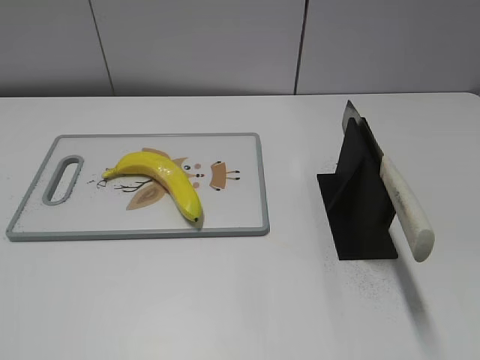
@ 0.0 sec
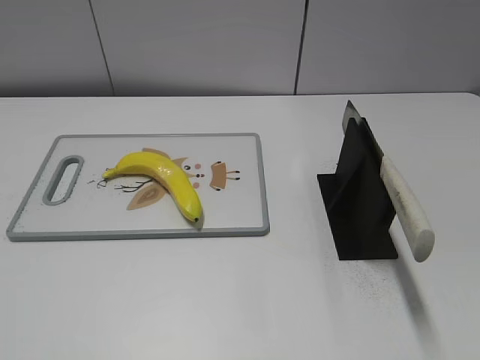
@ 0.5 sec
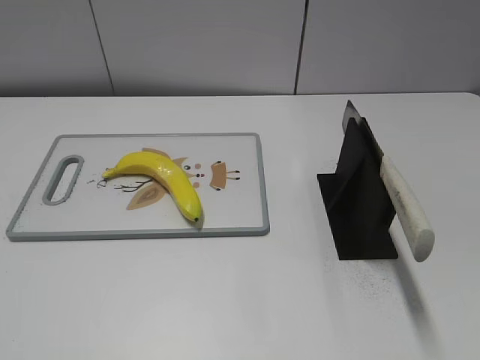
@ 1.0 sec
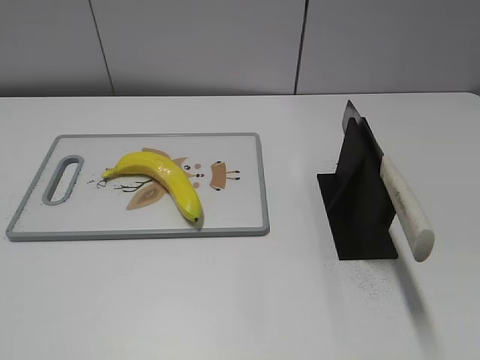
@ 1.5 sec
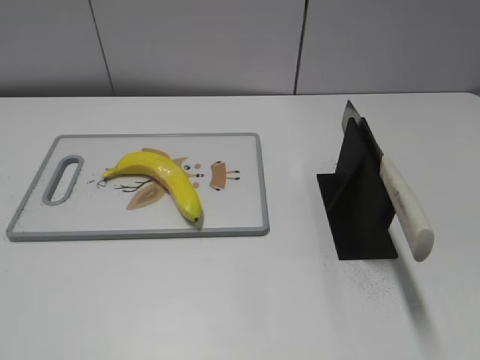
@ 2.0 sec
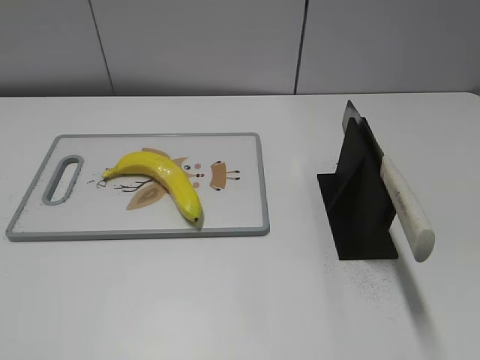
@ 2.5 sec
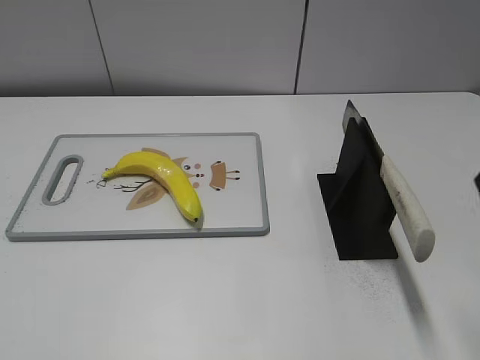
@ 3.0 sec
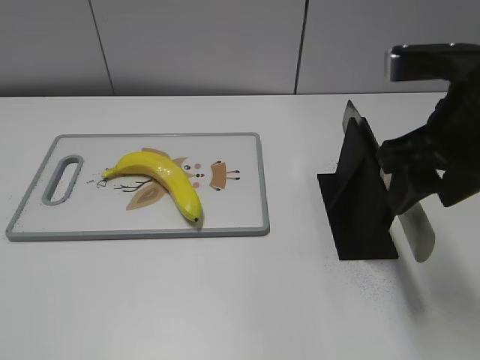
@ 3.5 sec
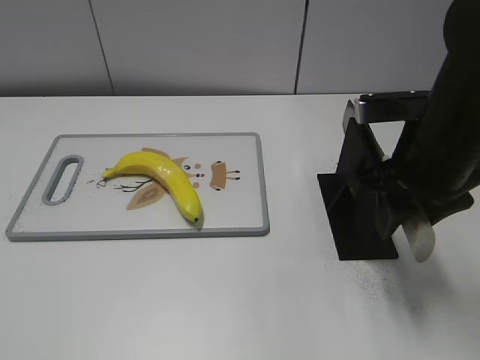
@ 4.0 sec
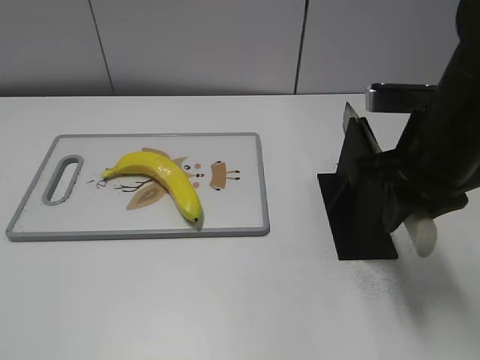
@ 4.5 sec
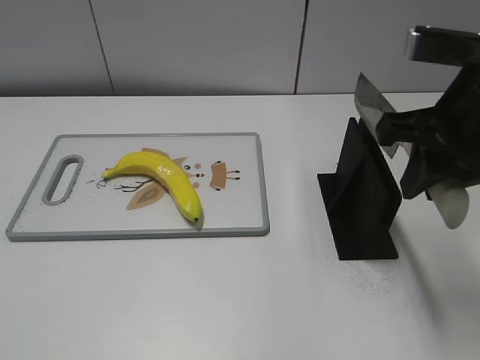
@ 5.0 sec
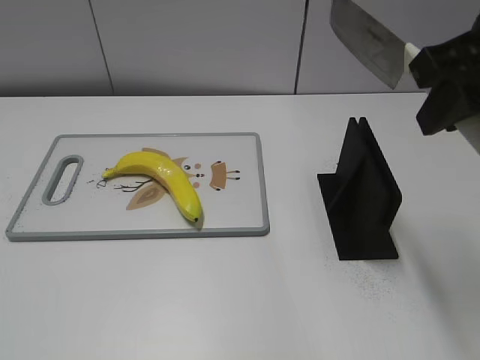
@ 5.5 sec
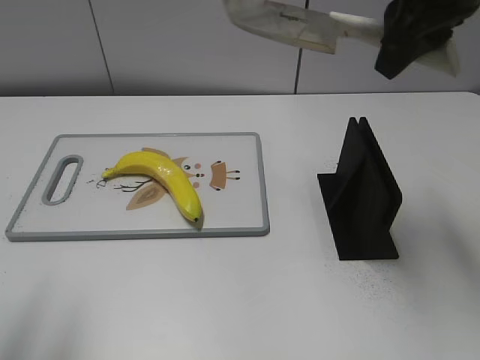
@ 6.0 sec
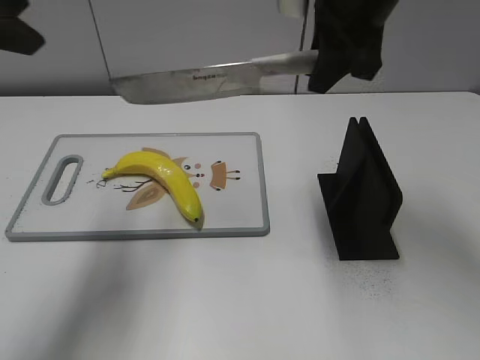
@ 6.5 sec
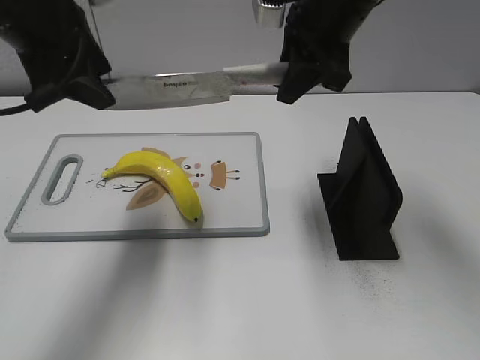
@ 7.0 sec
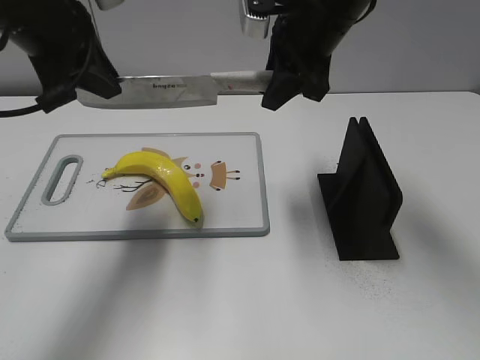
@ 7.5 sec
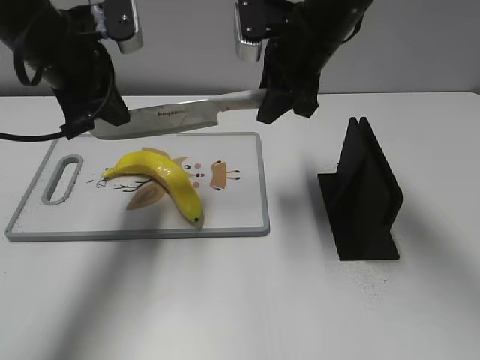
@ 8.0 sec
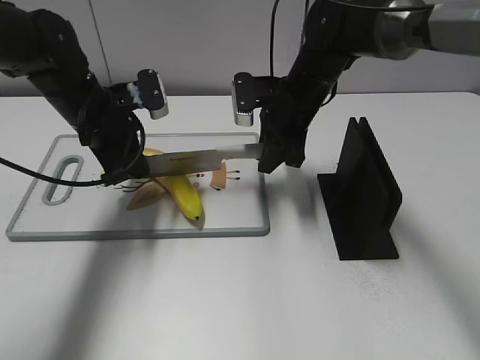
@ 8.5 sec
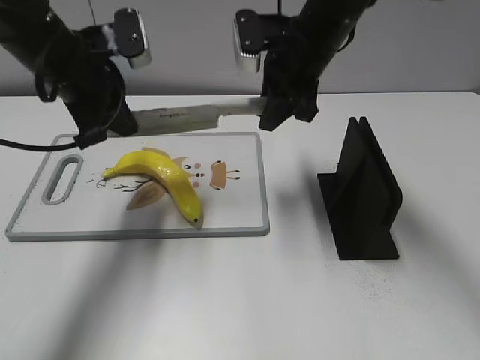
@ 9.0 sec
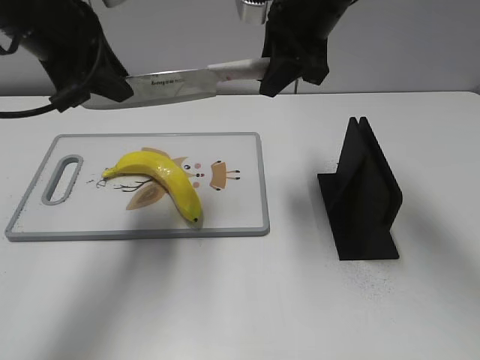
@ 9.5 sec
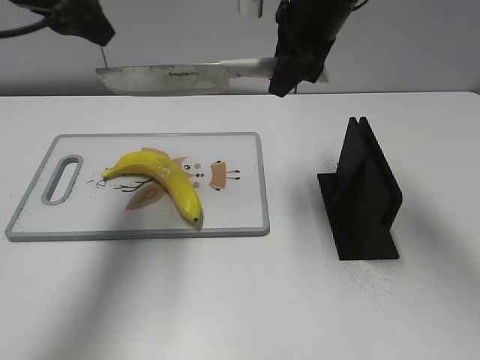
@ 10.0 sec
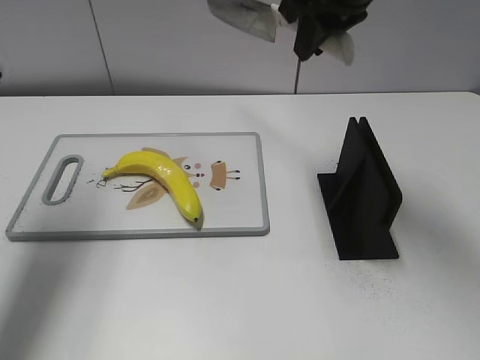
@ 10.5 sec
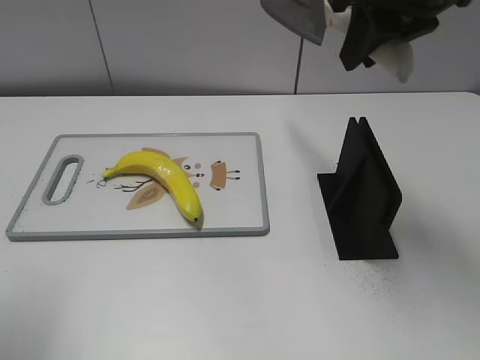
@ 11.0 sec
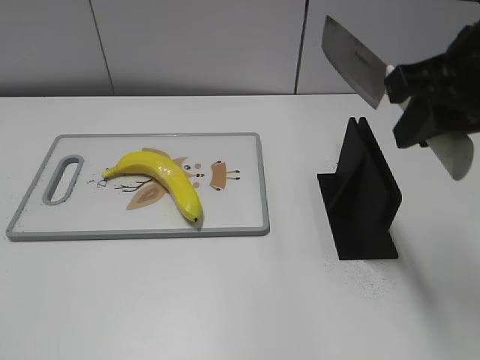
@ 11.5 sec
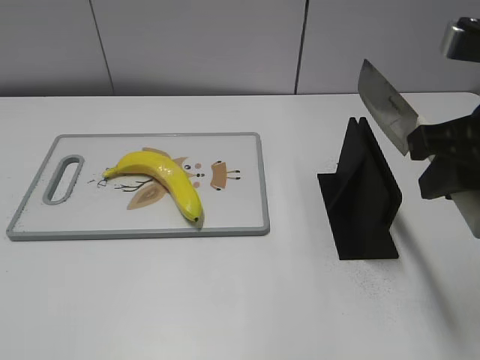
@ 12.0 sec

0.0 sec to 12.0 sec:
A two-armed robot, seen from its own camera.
Task of the whole recording: cut plastic banana.
Step, 0.0 sec to 5.0 sec: Grab the knife handle with your right hand.
Step, 5.5 sec to 9.0 sec: Lift the knife with your right hand.
Step, 10.0 sec to 10.5 sec: Cut the banana with your right hand.
Step, 11.0 sec to 11.5 sec: Secure the blade with your left hand.
2.0 sec to 4.0 sec: The right gripper is displaced forward and to the left by approximately 30 cm, and closes its fingers.
4.0 sec to 6.0 sec: The left gripper moves forward and upward, roughly 15 cm. Meanwhile the right gripper is displaced upward by about 15 cm, and closes its fingers.
6.0 sec to 8.0 sec: The right gripper goes approximately 15 cm downward, forward and to the left, while the left gripper travels forward, to the right and downward by approximately 25 cm, and closes up.
8.0 sec to 10.0 sec: The left gripper shifts about 10 cm upward, and opens up. Meanwhile the right gripper reaches roughly 10 cm downward, then returns.
10.0 sec to 12.0 sec: The left gripper travels backward by approximately 35 cm; the right gripper goes some 25 cm backward and to the right.

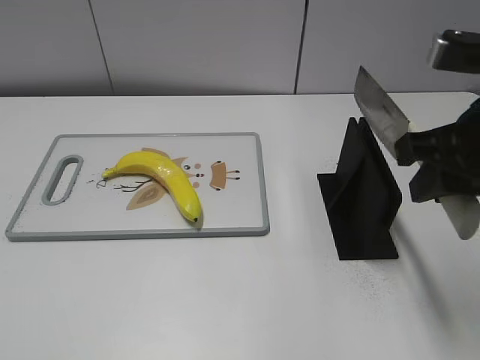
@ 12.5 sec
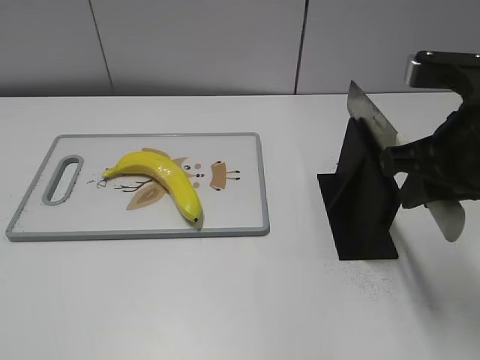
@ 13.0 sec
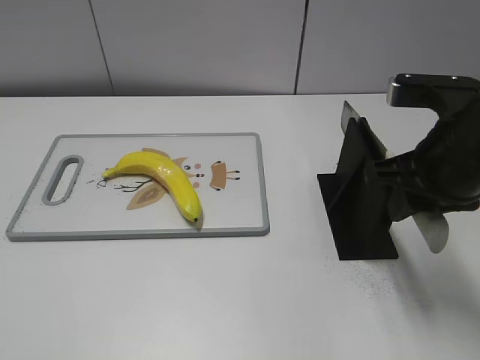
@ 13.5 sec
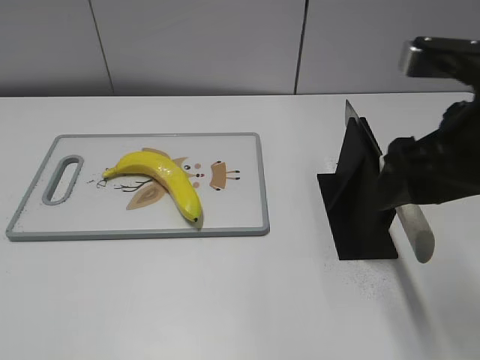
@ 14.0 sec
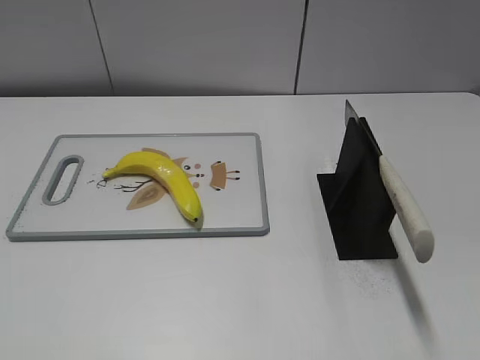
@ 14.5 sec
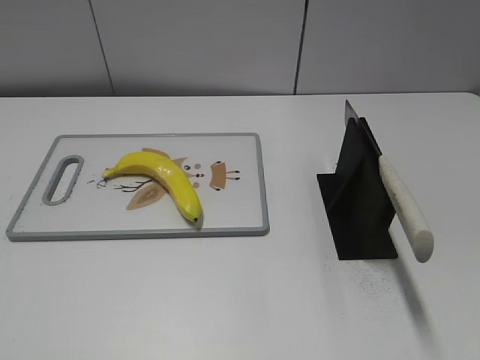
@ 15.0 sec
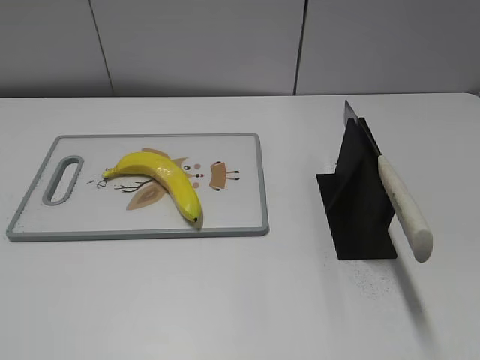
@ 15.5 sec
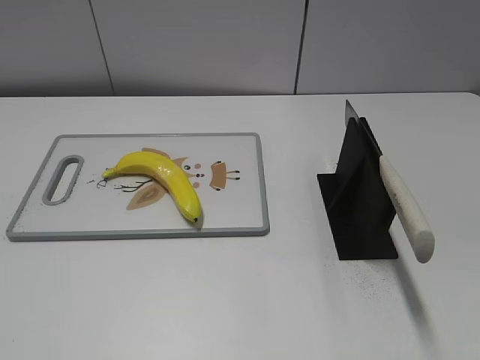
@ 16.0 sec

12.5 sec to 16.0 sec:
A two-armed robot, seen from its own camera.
Task of the whole recording: cut plastic banana.
Step, 12.5 sec to 16.0 sec: Place the knife on the storage rack with your right hand.
12.5 sec to 14.5 sec: The right gripper goes about 15 cm backward, and opens up.

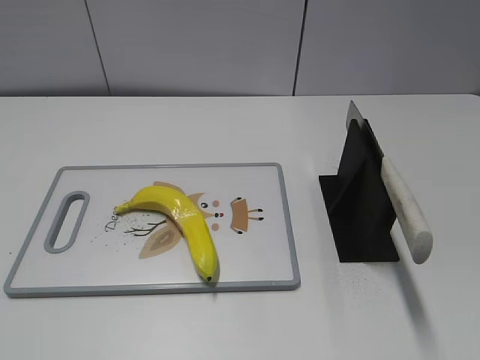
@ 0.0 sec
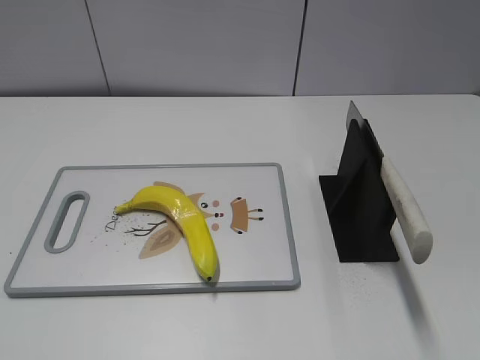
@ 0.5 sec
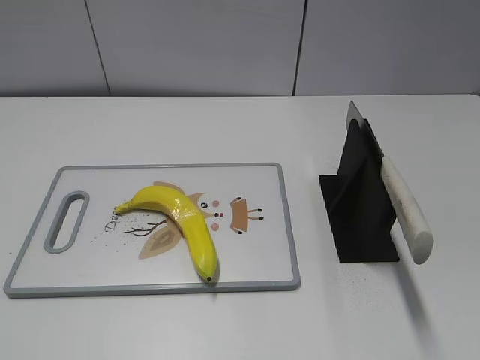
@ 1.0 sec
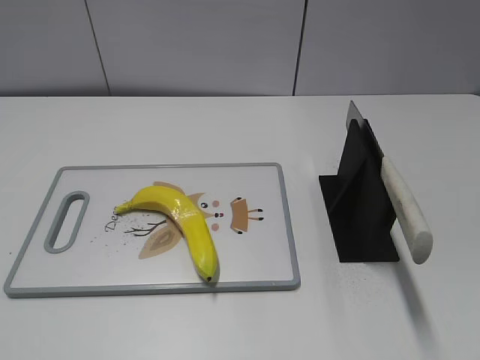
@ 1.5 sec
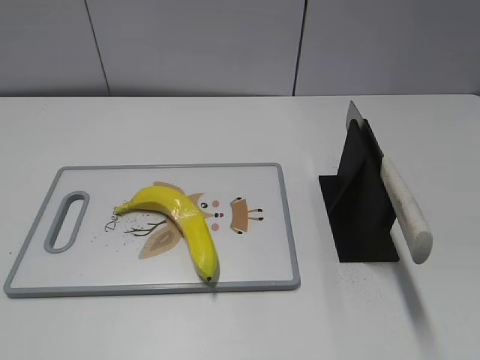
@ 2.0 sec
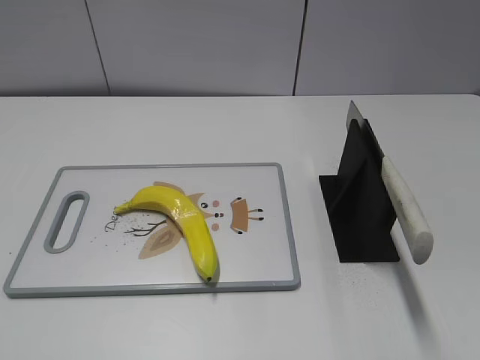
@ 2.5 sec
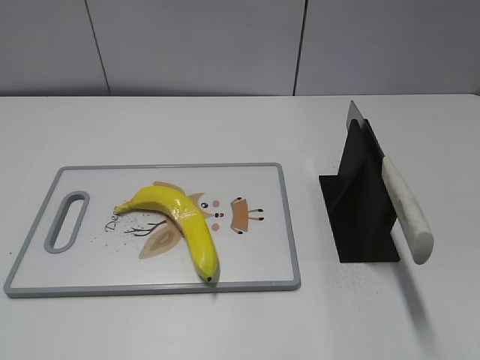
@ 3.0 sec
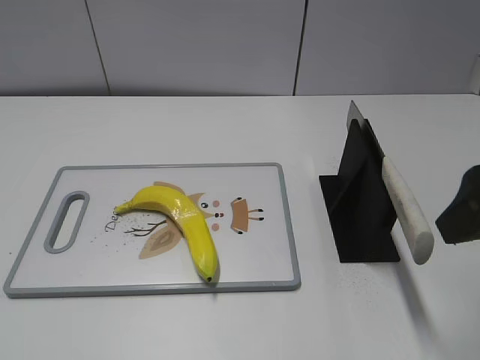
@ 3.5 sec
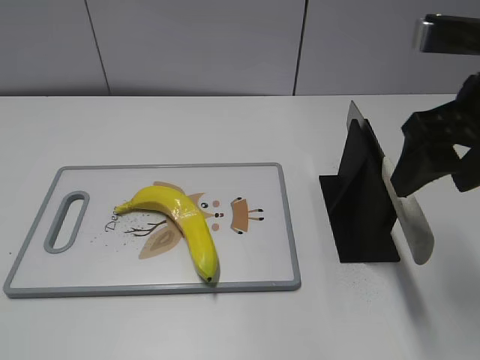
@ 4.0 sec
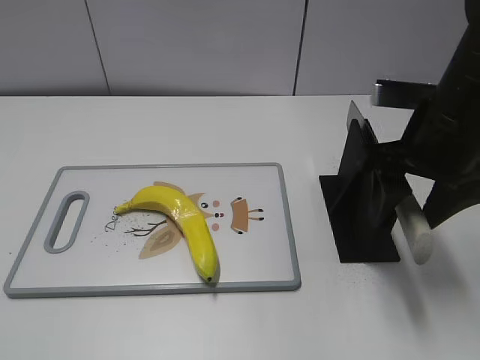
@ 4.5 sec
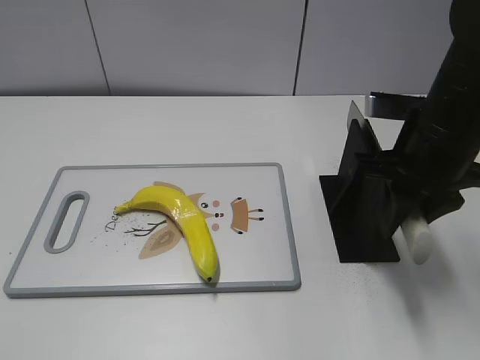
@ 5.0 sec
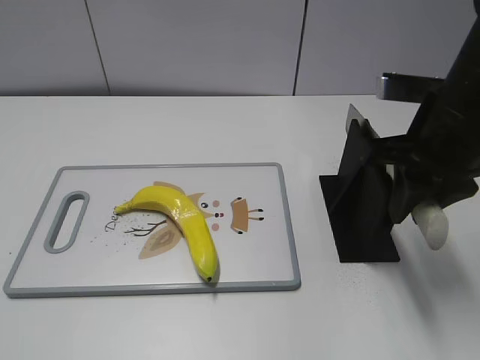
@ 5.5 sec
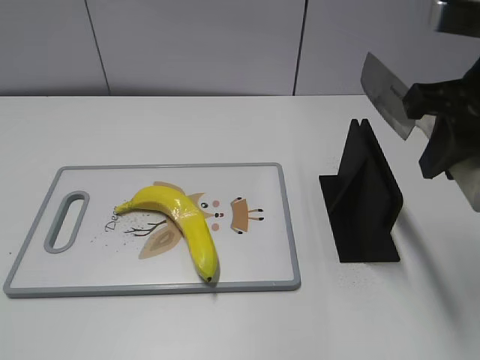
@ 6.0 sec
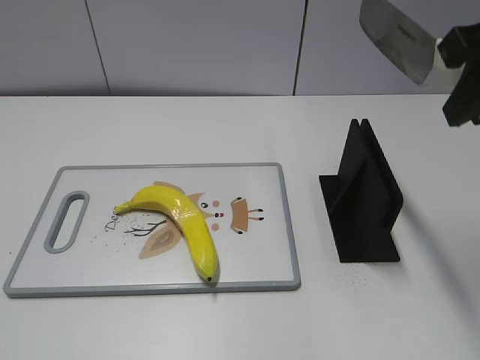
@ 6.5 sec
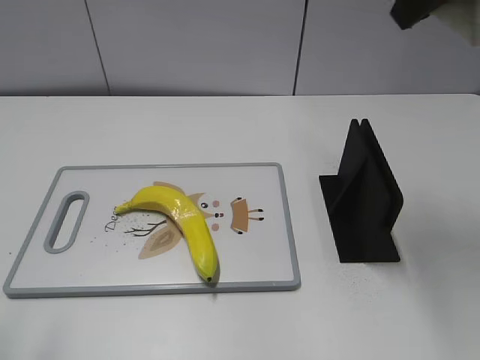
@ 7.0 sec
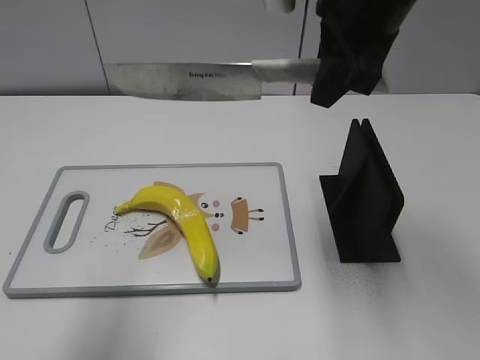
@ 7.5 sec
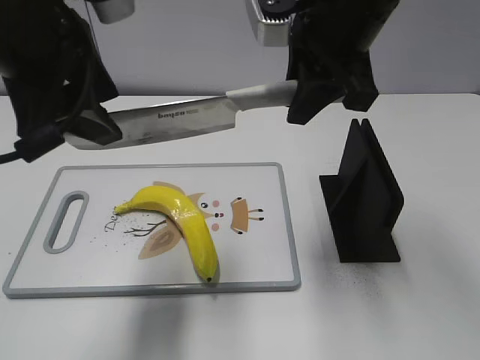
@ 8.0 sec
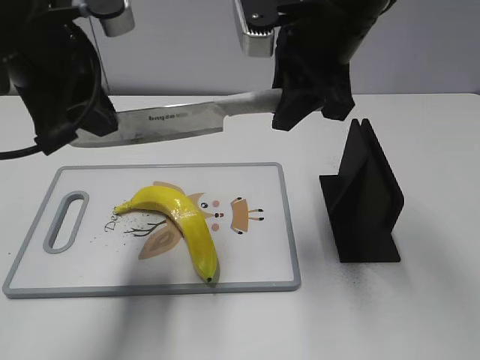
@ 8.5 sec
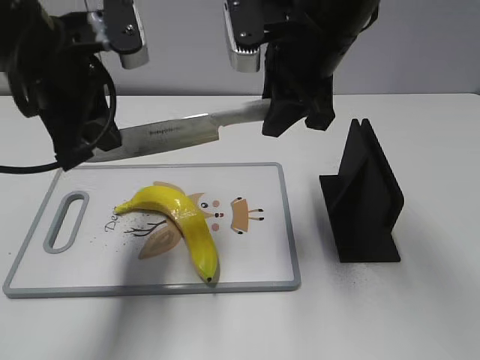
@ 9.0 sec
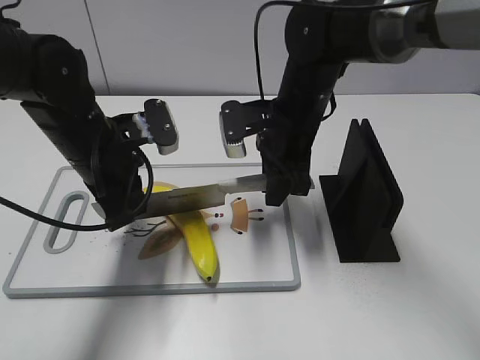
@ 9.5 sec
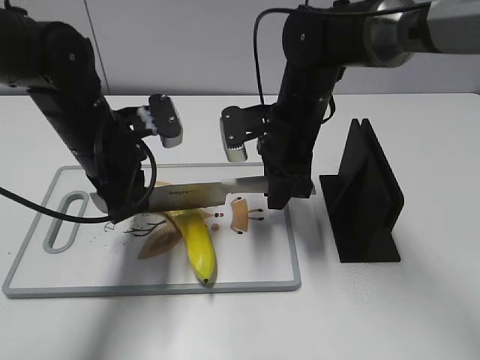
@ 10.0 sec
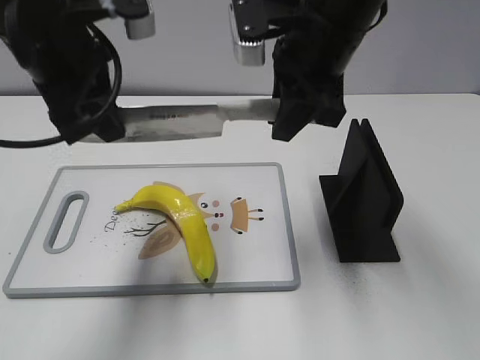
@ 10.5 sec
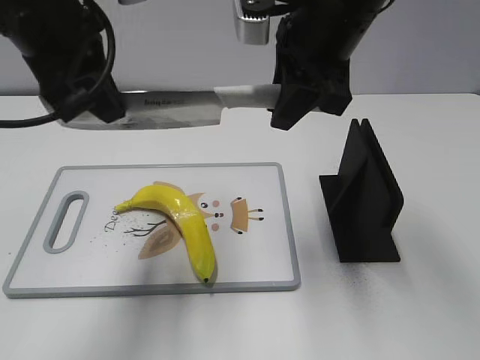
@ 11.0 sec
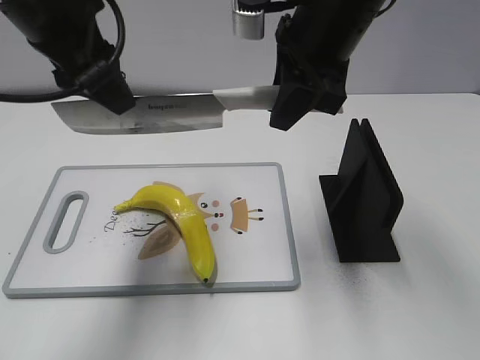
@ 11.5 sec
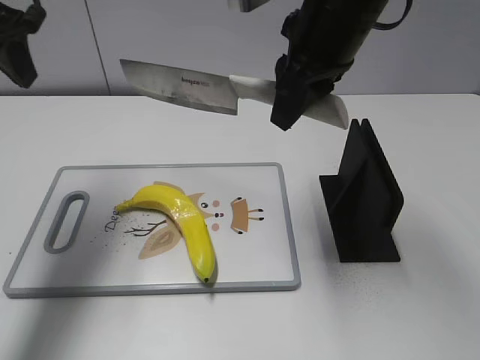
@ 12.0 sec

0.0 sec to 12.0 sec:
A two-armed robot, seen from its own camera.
Task of the whole recording: cut plastic banana.
Step, 0.0 sec to 6.0 sec: Grab the knife handle with your right hand.
Step, 6.5 sec to 10.5 sec: Hold the blade with your left hand.
2.0 sec to 4.0 sec: The right gripper shifts approximately 25 cm forward.
4.0 sec to 6.0 sec: The right gripper moves roughly 5 cm downward and comes back, and closes.
6.0 sec to 8.0 sec: The left gripper moves forward and to the right, approximately 30 cm; the right gripper heads to the left and forward, covering some 15 cm.
8.0 sec to 10.0 sec: The right gripper heads downward, covering approximately 15 cm. The left gripper shifts roughly 20 cm downward and forward, and closes.
10.0 sec to 12.0 sec: The left gripper goes some 20 cm upward and to the left, and opens, while the right gripper moves upward, roughly 15 cm.
